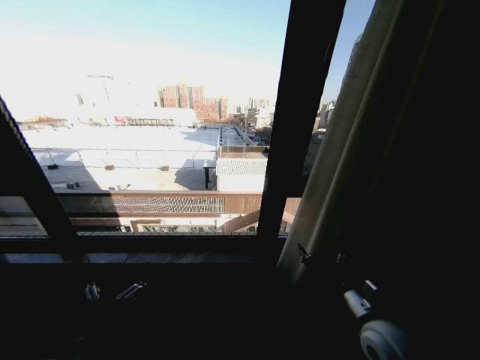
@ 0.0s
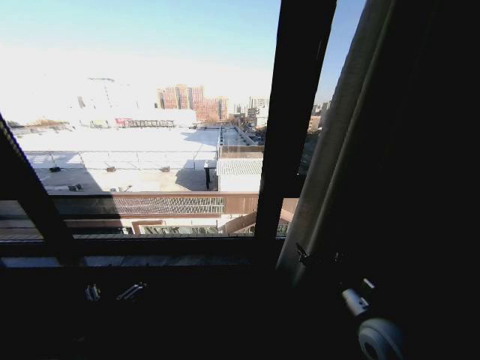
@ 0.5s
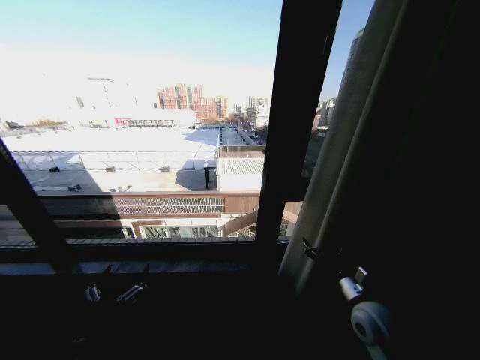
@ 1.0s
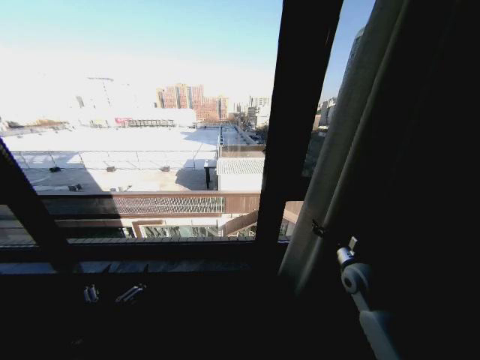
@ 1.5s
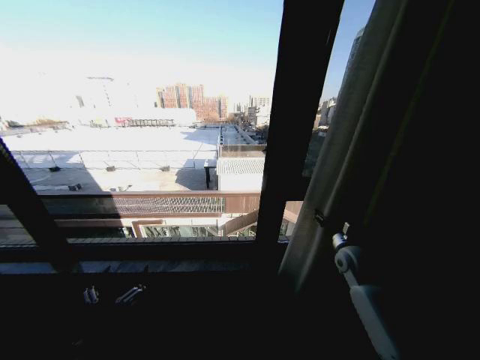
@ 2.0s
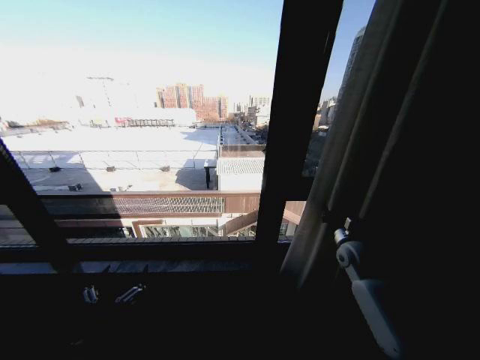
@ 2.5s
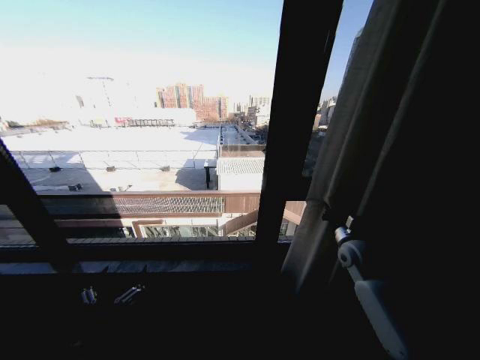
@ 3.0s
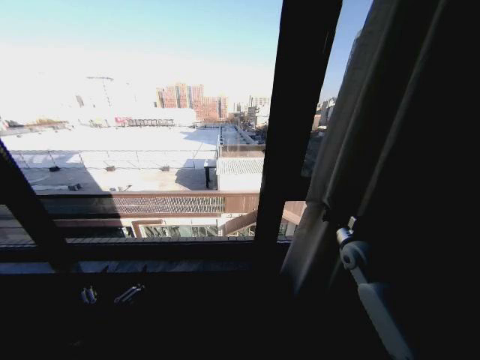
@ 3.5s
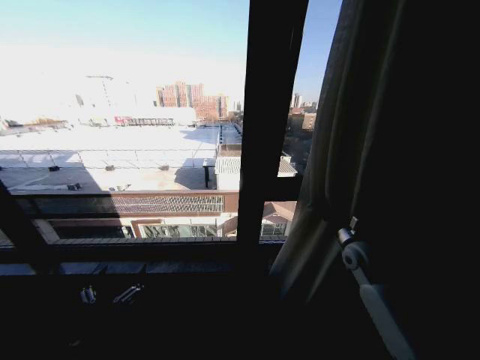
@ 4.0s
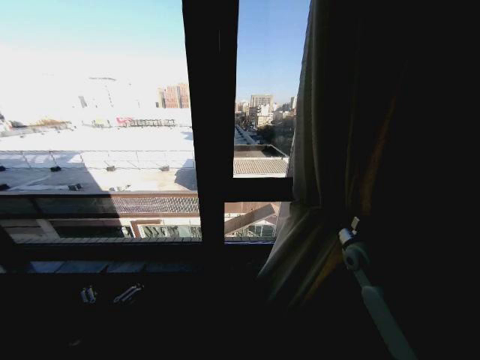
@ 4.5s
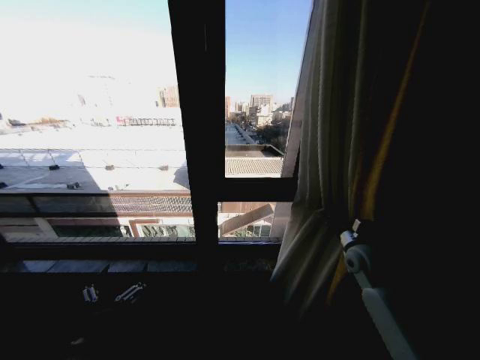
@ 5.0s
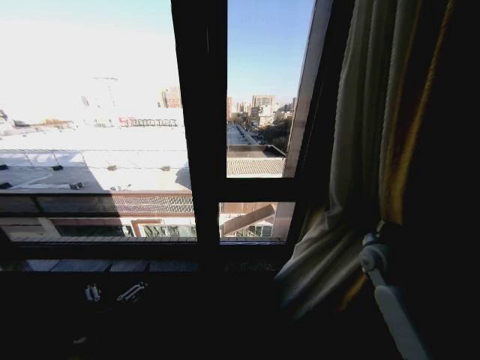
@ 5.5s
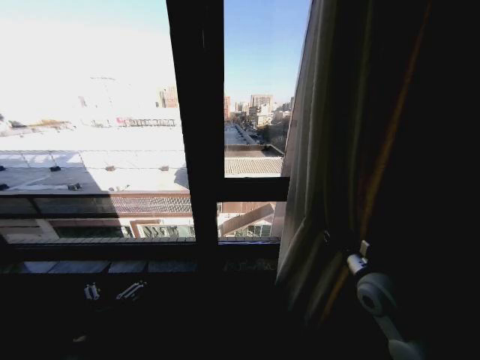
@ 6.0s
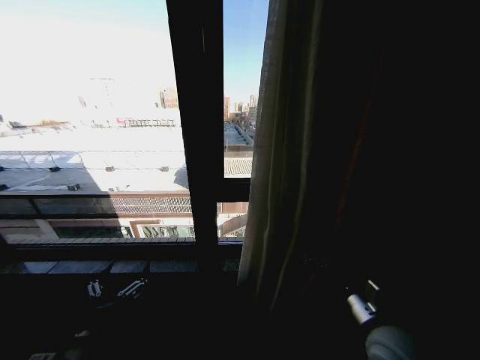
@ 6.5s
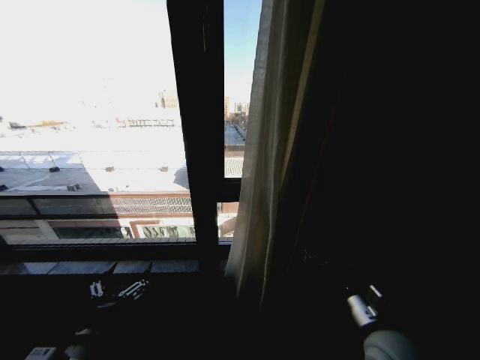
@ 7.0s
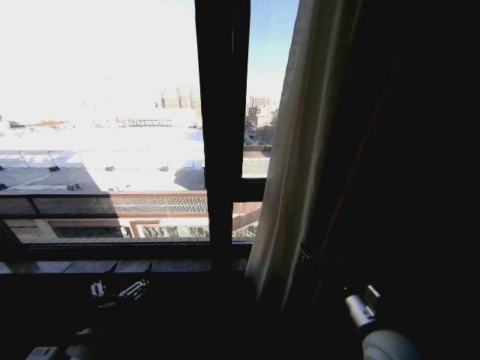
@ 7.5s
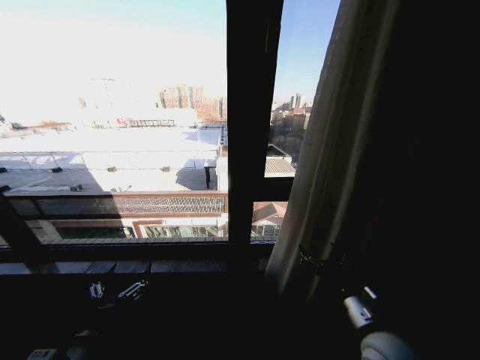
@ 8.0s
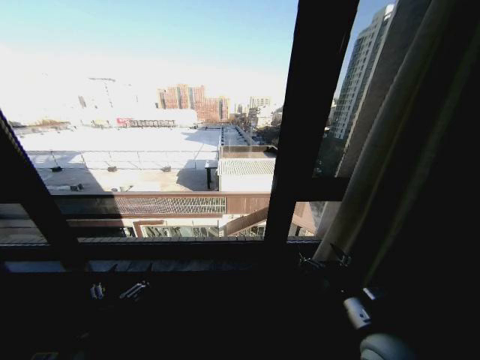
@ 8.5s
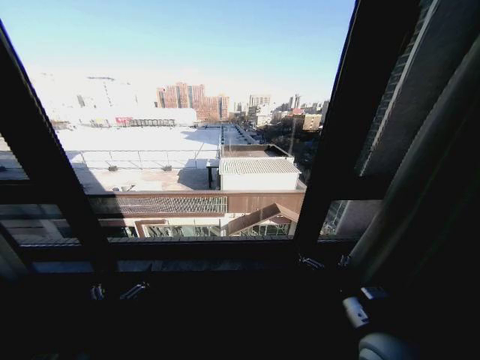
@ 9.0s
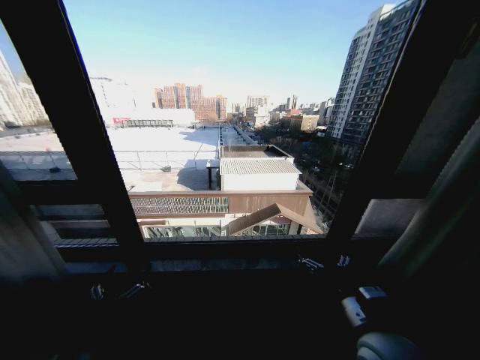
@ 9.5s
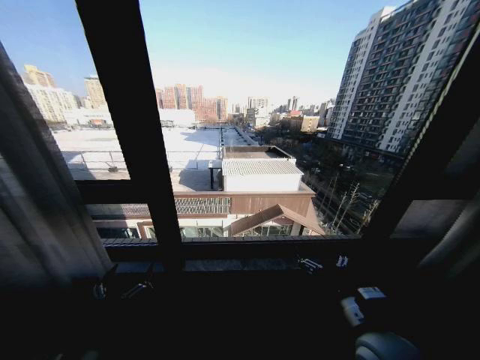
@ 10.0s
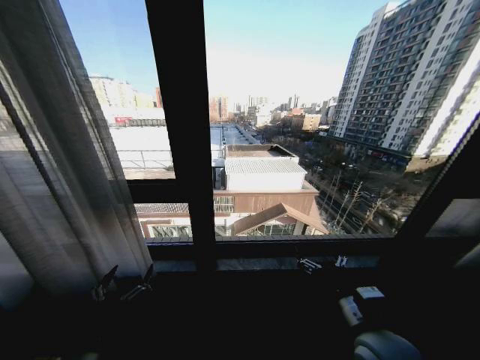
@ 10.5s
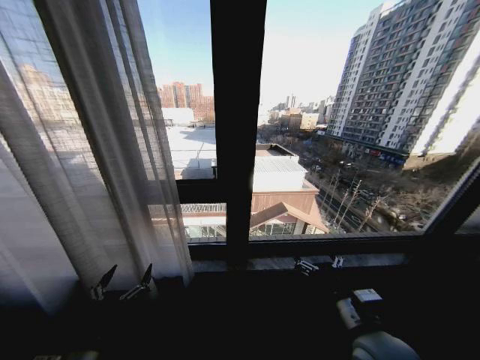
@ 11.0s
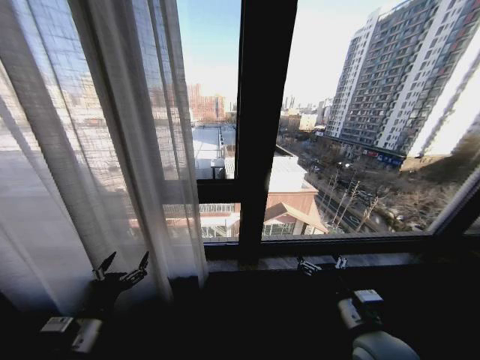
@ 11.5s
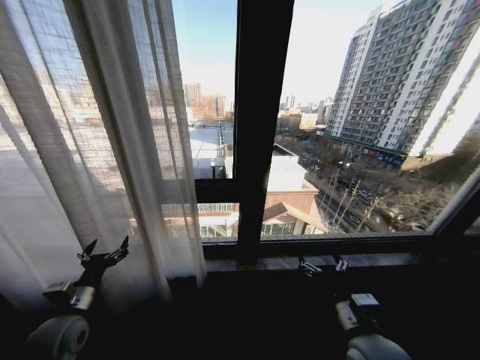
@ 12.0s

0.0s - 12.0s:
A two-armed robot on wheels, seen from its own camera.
Task of the whole recording: Open the curtains by pulling them apart, changing their state from closed to fully open.
0.0s - 2.0s: The right gripper moves forward, approximately 20 cm.
2.0s - 4.0s: The right gripper closes its fingers.
4.0s - 6.0s: The right gripper goes about 10 cm backward, and opens its fingers.
6.0s - 8.0s: The right gripper goes about 15 cm backward and to the left, and opens.
10.0s - 12.0s: The left gripper is displaced forward and to the left by roughly 15 cm.

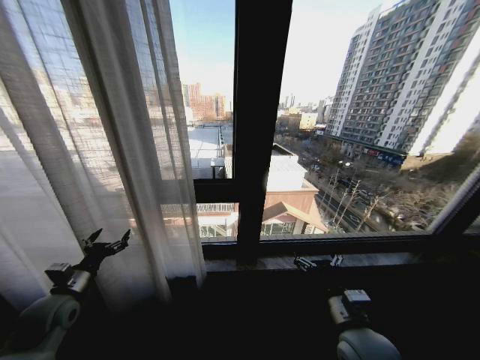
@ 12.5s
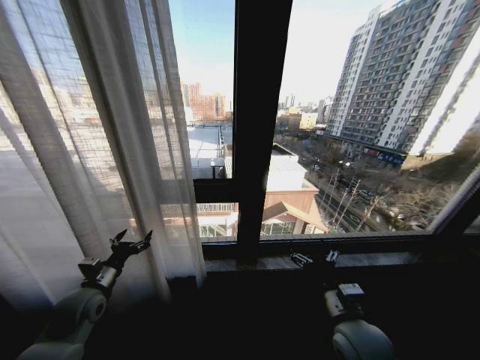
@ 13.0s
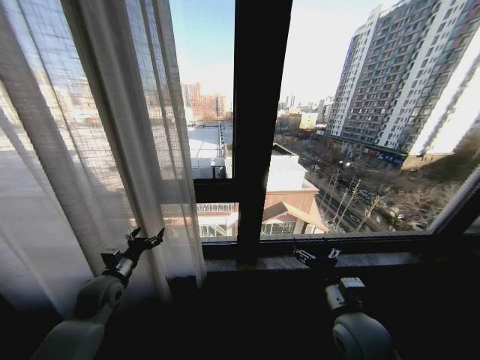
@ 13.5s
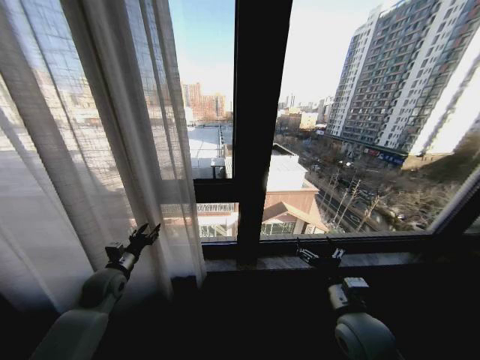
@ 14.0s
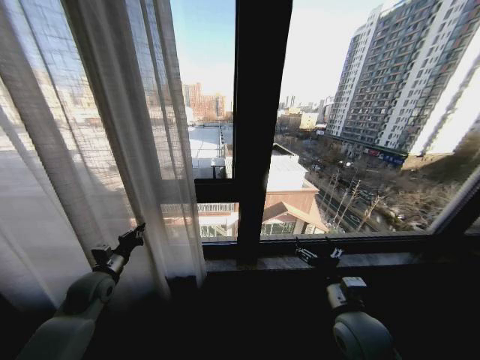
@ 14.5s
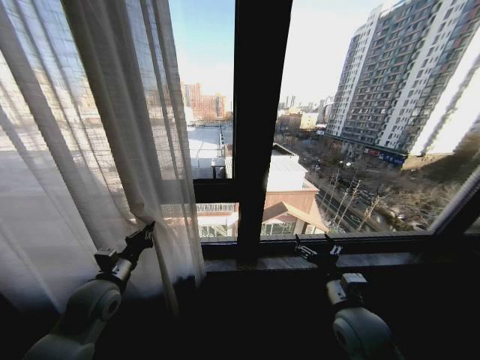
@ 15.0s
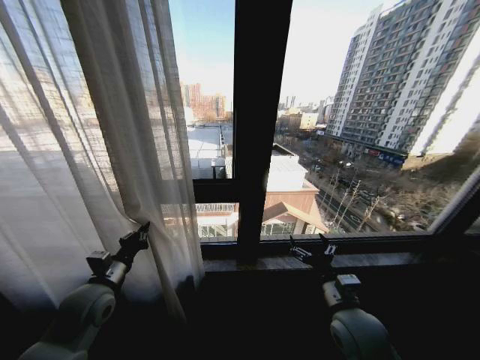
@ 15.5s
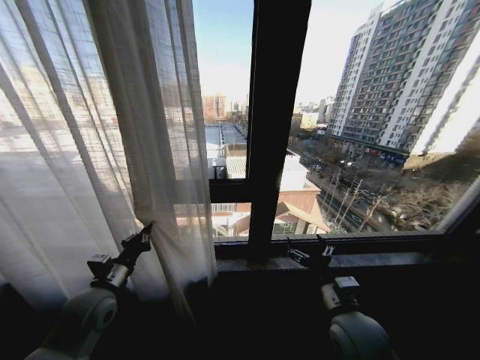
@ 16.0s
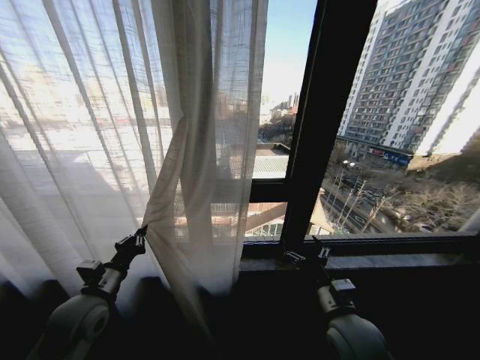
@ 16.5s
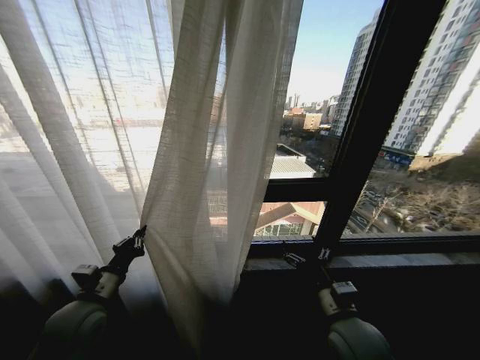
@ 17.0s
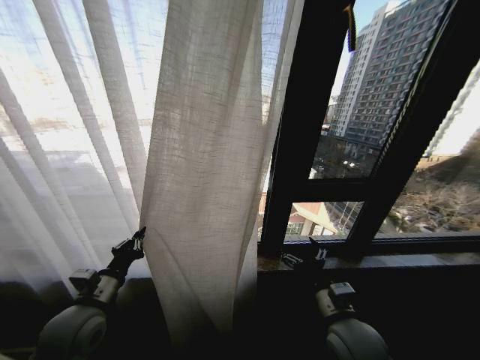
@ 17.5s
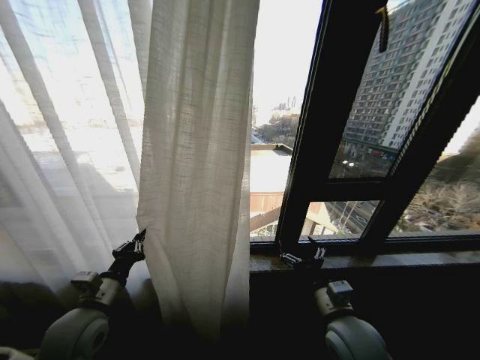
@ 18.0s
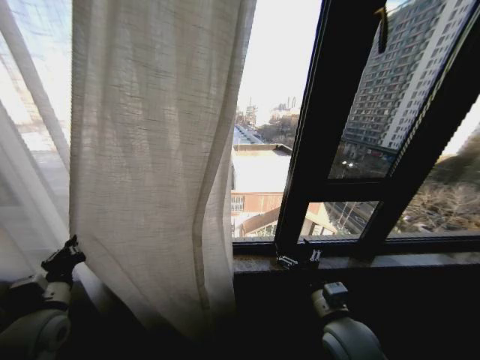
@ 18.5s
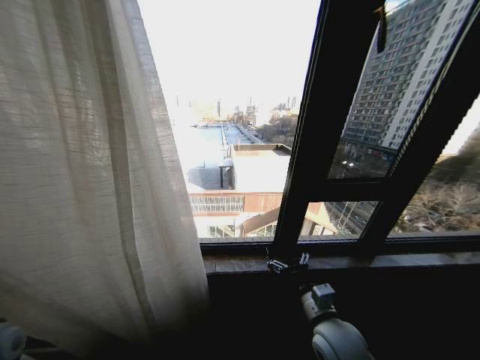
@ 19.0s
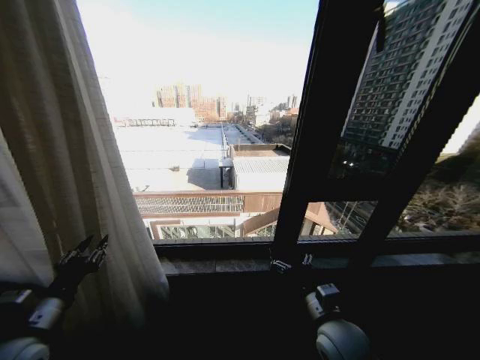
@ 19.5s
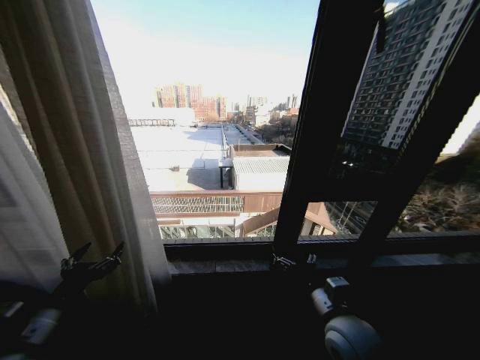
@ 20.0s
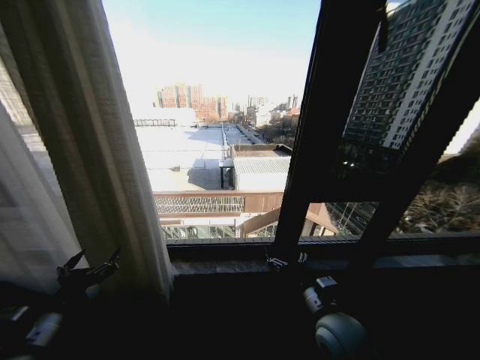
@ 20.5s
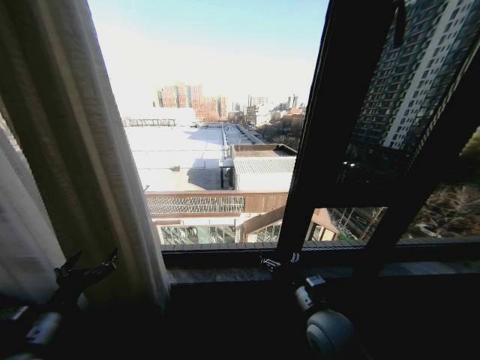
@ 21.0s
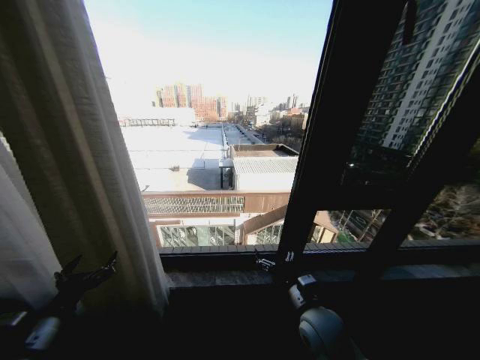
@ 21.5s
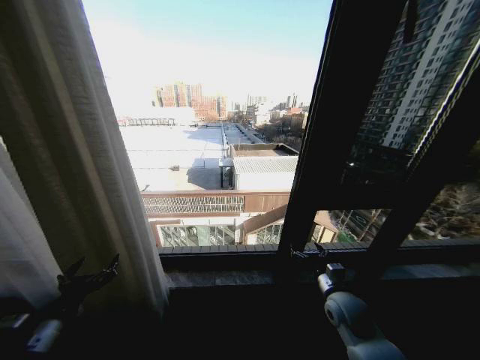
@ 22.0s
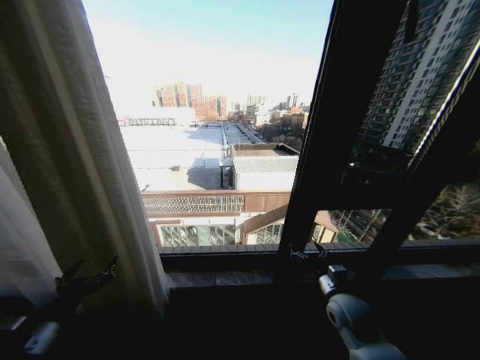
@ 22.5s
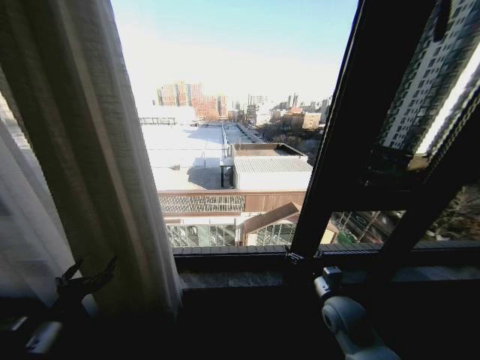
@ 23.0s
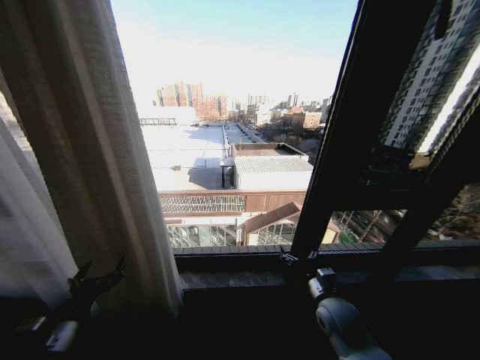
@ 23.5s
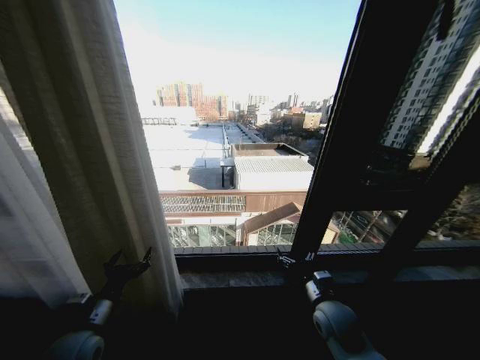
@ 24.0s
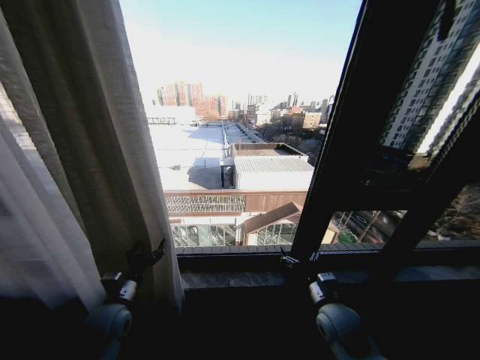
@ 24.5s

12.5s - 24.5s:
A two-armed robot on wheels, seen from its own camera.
Task of the whole recording: Open the curtains by pulling them apart, changing their state from closed to fully open.
12.5s - 14.5s: The left gripper is displaced forward by some 5 cm, and closes.
14.5s - 16.5s: The left gripper is displaced backward, to the right and upward by approximately 10 cm.
16.5s - 18.5s: The left gripper shifts about 5 cm to the left.
18.5s - 20.5s: The left gripper shifts some 10 cm backward, travels to the left and back again, some 10 cm each way, and opens.
20.5s - 22.5s: The right gripper goes some 10 cm to the right, forward and downward.
22.5s - 24.5s: The left gripper heads forward, to the right and downward, covering roughly 15 cm.

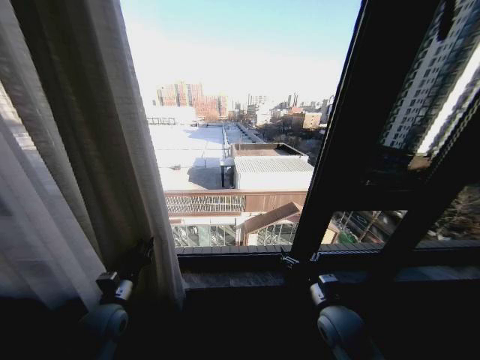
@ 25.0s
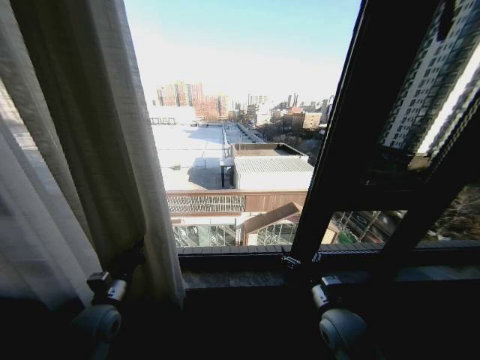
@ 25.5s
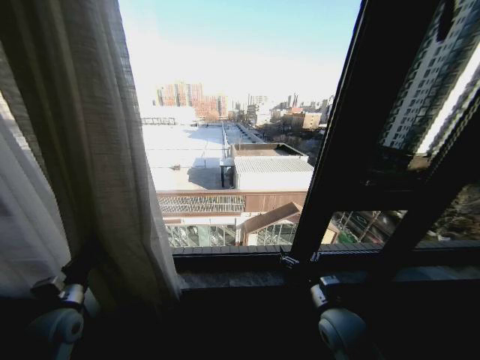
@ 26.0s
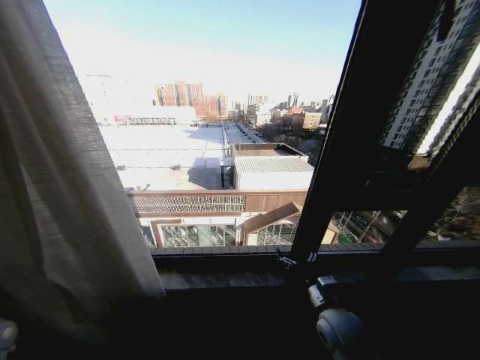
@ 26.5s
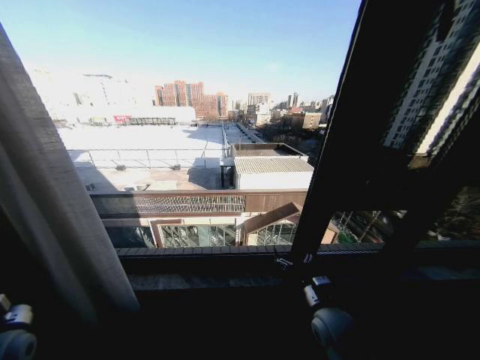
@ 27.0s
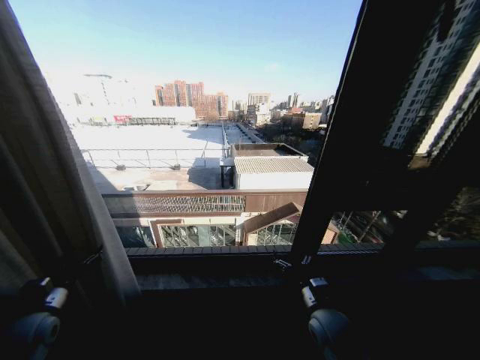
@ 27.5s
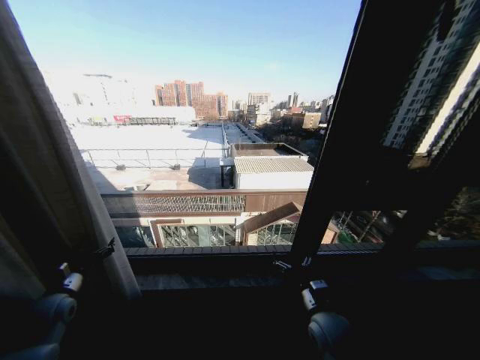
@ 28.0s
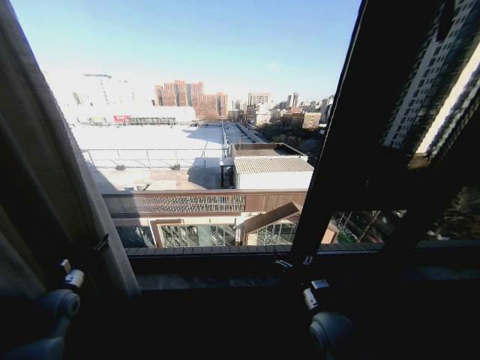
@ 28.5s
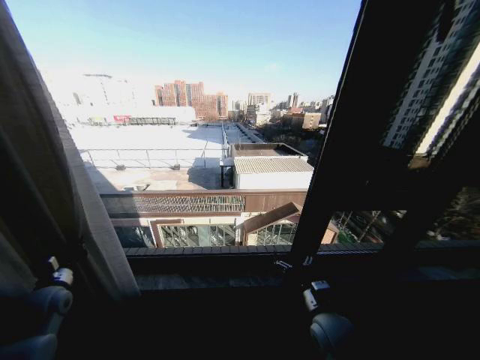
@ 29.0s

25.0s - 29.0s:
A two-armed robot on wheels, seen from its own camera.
Task of the whole recording: Open the curtains by pulling them apart, changing their state from closed to fully open.
25.0s - 27.0s: The left gripper moves to the left and backward, approximately 15 cm.
27.0s - 29.0s: The left gripper heads forward, covering approximately 10 cm, and opens, then closes once more.
